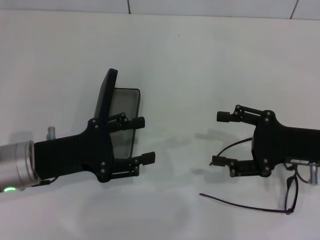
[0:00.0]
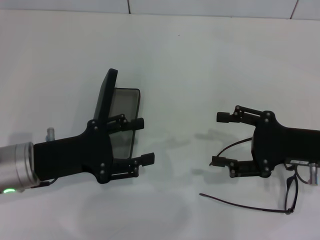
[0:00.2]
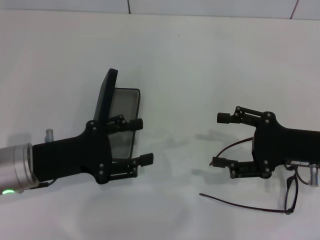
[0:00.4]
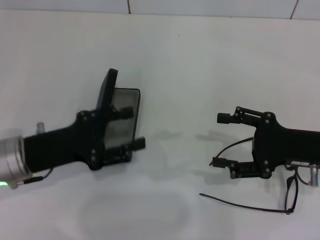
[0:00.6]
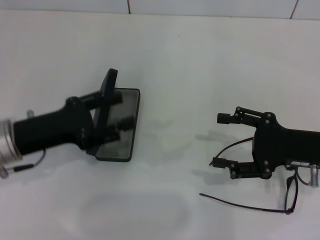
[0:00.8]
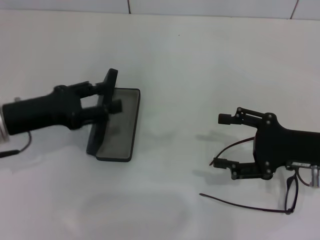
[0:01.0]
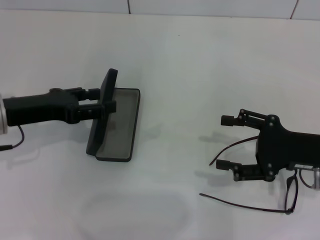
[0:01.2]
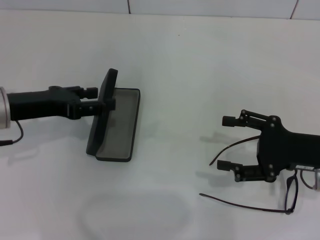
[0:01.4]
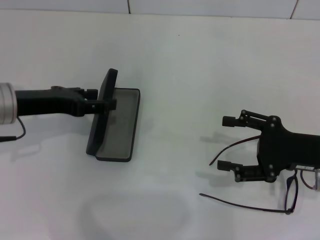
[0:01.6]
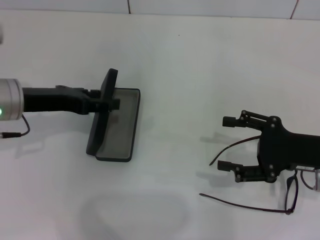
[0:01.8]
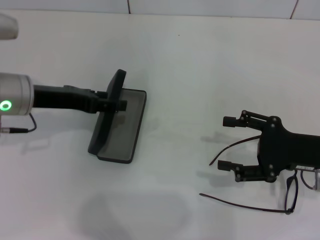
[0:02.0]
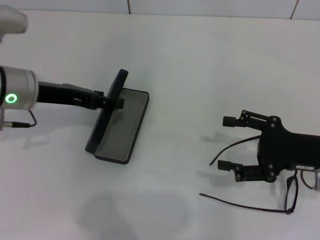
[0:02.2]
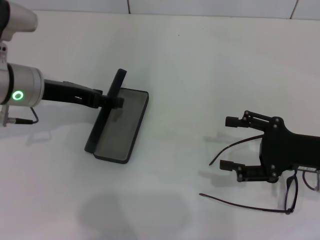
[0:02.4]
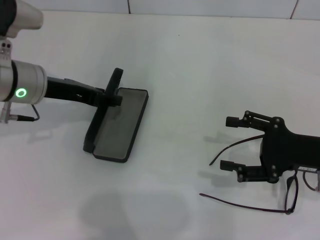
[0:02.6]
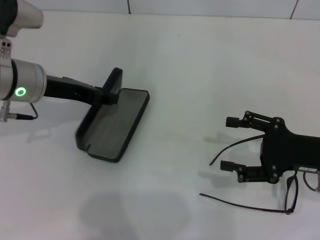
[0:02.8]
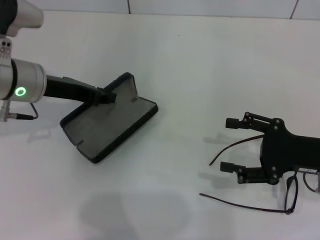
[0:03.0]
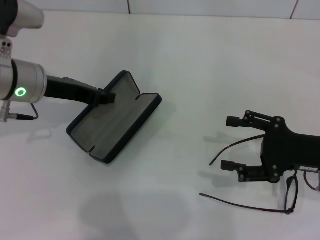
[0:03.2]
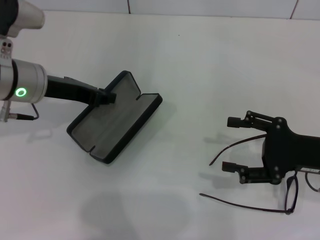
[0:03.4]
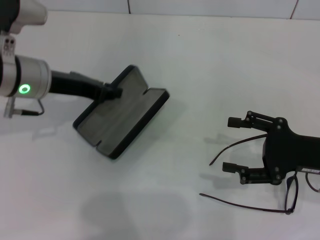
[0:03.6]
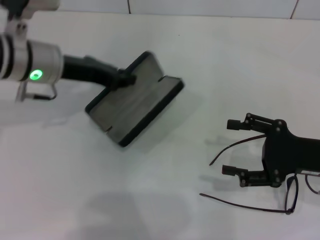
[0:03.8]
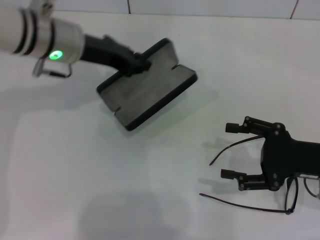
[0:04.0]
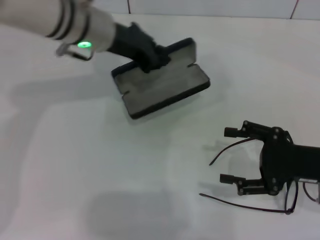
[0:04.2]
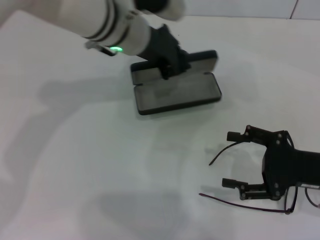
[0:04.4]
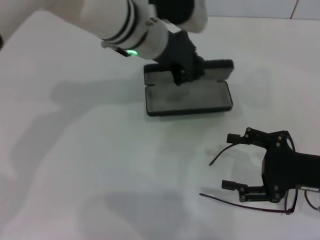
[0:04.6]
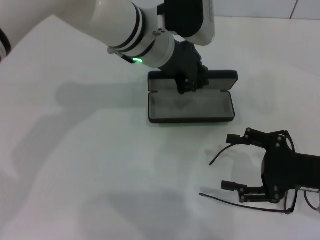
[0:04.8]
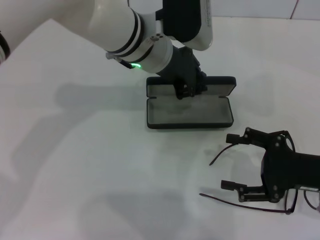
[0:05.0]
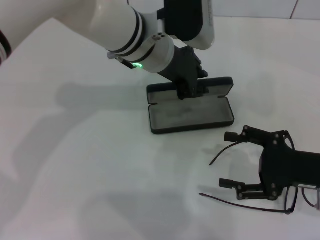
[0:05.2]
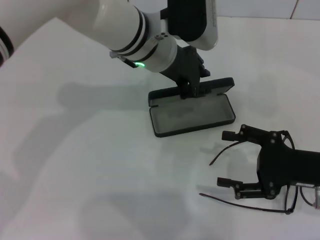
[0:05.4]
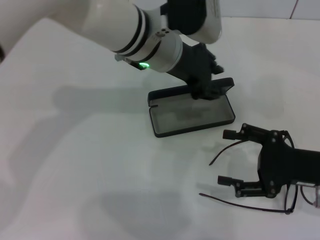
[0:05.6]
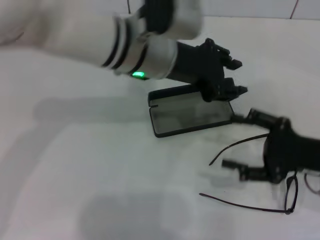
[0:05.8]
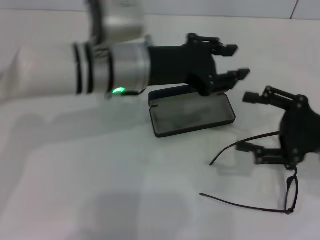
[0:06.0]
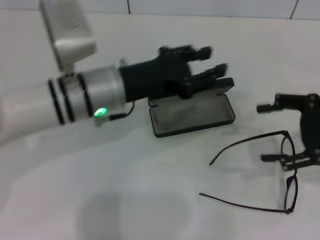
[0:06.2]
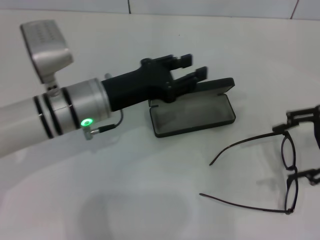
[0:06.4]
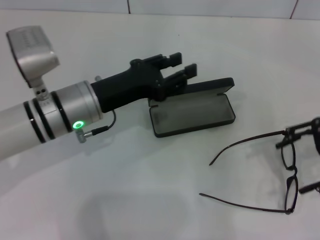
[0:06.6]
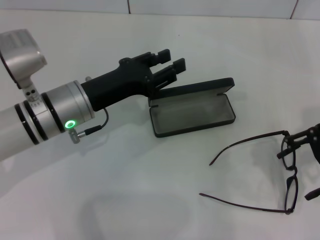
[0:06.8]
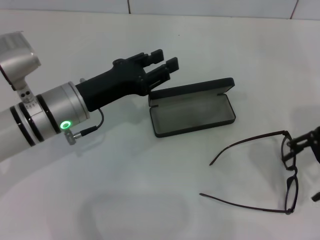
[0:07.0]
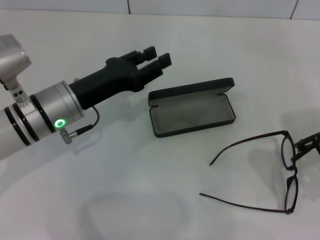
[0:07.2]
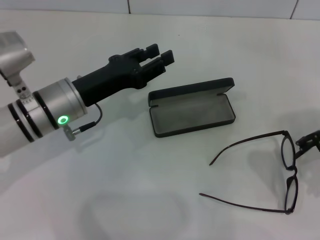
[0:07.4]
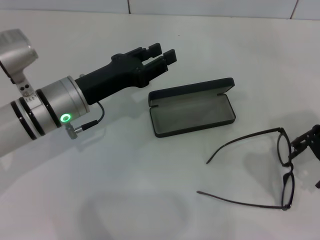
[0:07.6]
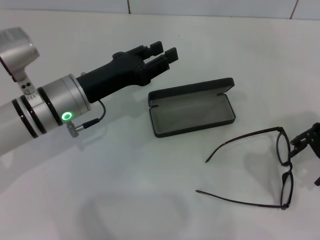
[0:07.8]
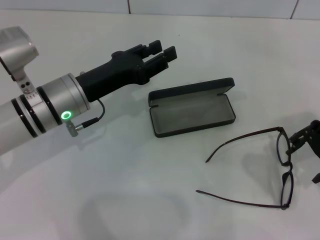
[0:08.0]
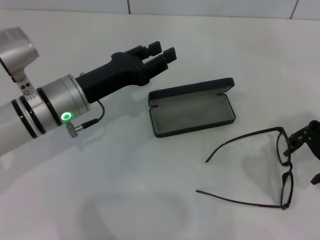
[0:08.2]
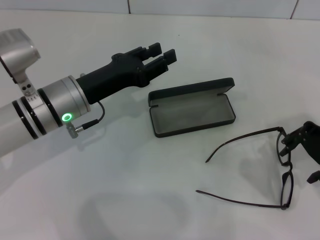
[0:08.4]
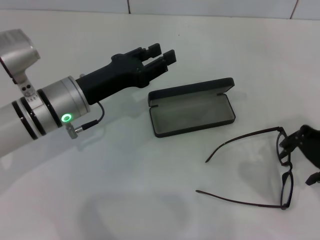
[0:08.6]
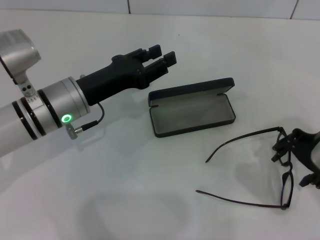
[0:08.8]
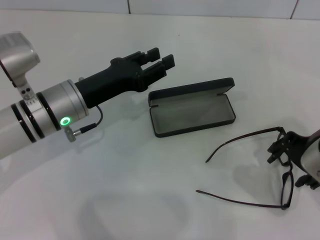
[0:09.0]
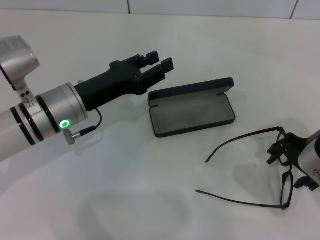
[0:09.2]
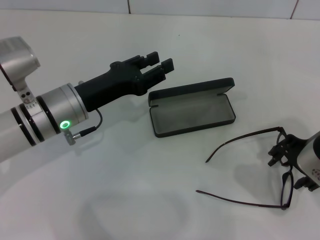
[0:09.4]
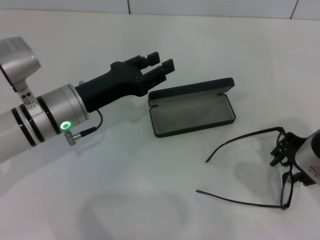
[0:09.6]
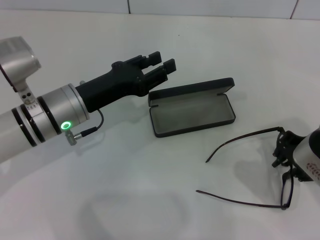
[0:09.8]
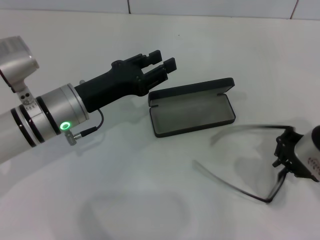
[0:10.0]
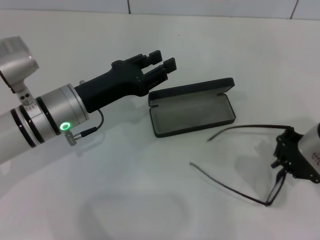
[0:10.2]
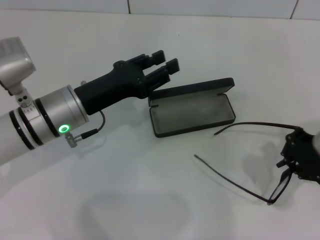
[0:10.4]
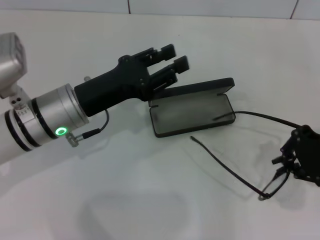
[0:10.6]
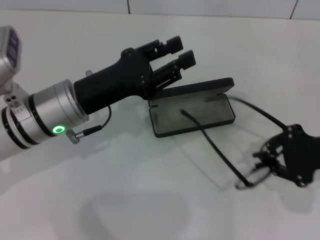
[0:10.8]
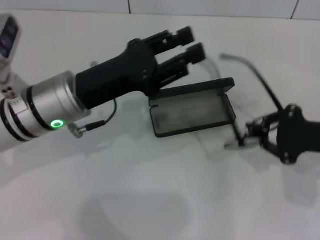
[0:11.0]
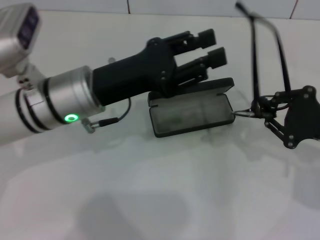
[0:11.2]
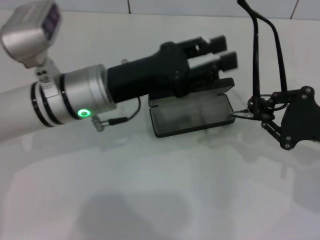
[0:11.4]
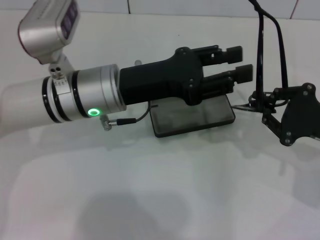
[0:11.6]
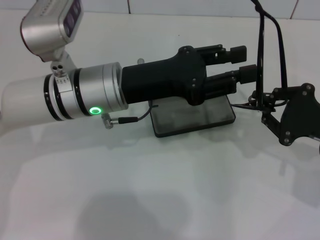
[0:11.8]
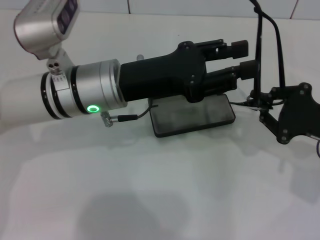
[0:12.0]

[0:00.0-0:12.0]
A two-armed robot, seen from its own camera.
Step, 0:00.0 to 0:03.0: Grab the glasses case with your left hand.
Step, 0:03.2 to 0:05.4: Place the glasses case in the center of the table with your left hand.
Step, 0:05.6 to 0:10.2: Grab the eyeglass frame with your right hand.
0:00.0 to 0:01.6: The left gripper moves forward and upward, some 10 cm.
0:01.6 to 0:03.0: The left gripper shifts by some 5 cm, and closes up.
0:03.0 to 0:04.4: The left gripper moves to the right, some 15 cm.
0:04.4 to 0:06.0: The left gripper goes some 5 cm backward, and opens up.
0:06.0 to 0:07.6: The left gripper shifts some 10 cm to the left and downward. Meanwhile the right gripper moves upward, roughly 10 cm.
0:07.6 to 0:09.0: The grippers stay close to where they were, moving slightly.
0:09.0 to 0:10.4: The right gripper closes.
0:10.4 to 0:12.0: The left gripper goes about 10 cm to the right and upward. The right gripper is displaced downward and to the right by some 10 cm.

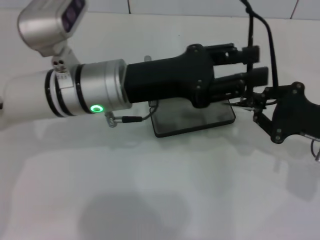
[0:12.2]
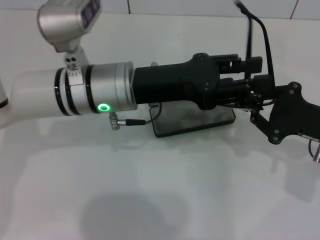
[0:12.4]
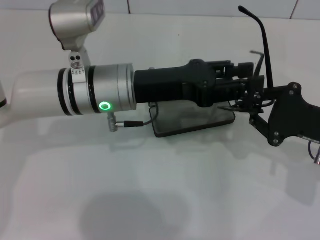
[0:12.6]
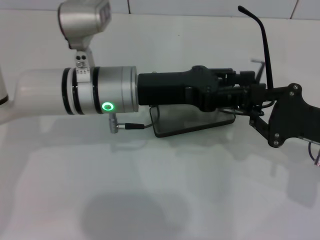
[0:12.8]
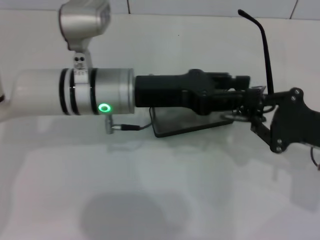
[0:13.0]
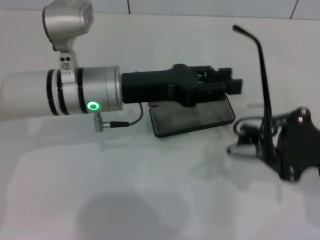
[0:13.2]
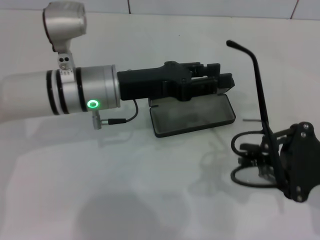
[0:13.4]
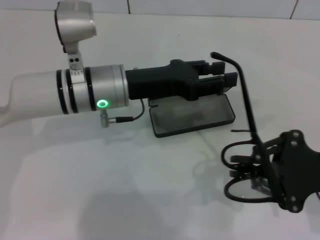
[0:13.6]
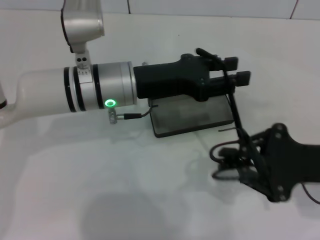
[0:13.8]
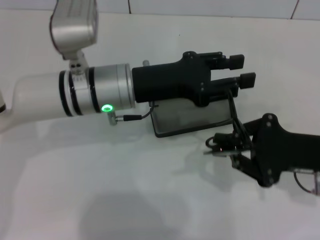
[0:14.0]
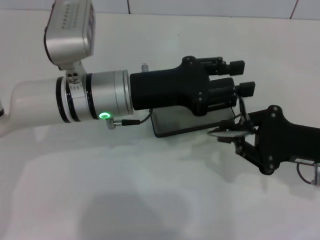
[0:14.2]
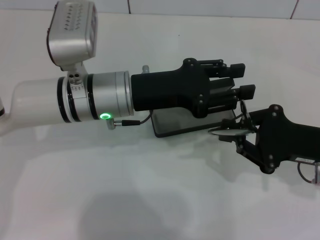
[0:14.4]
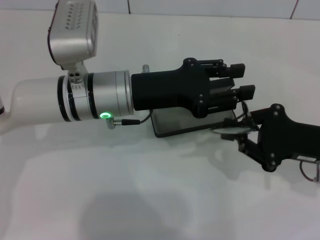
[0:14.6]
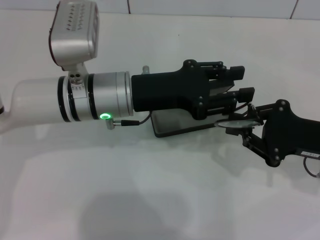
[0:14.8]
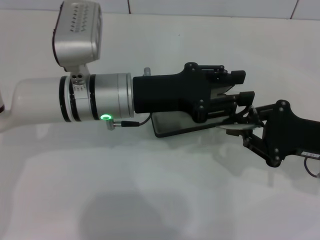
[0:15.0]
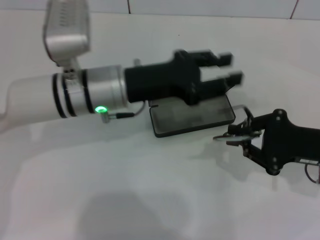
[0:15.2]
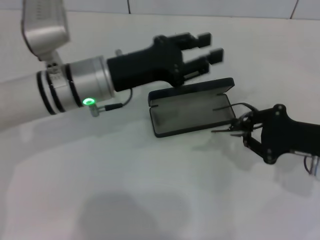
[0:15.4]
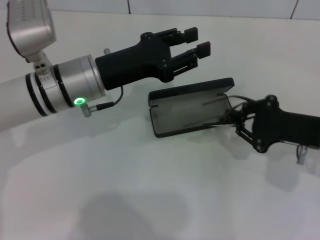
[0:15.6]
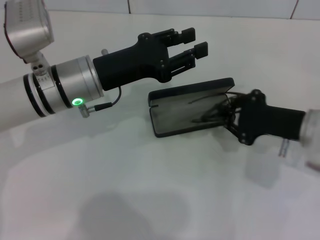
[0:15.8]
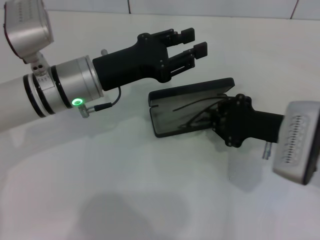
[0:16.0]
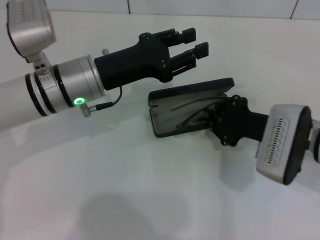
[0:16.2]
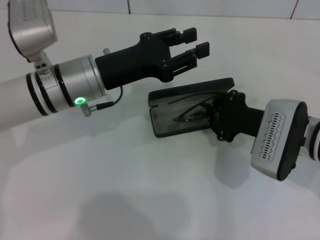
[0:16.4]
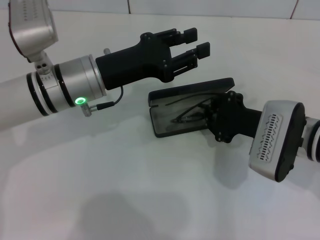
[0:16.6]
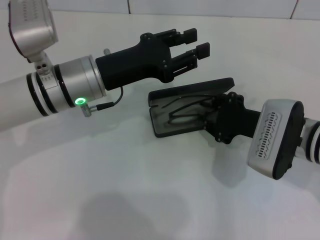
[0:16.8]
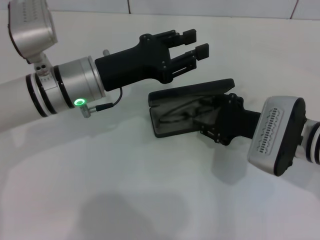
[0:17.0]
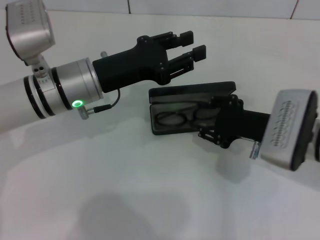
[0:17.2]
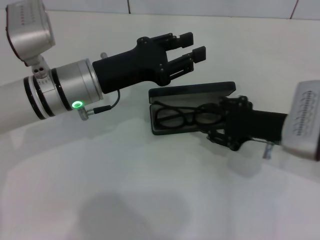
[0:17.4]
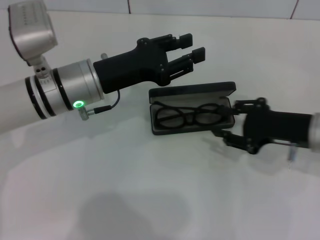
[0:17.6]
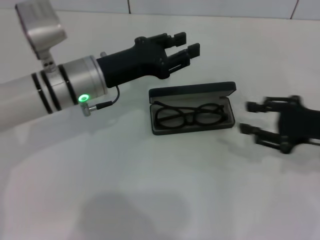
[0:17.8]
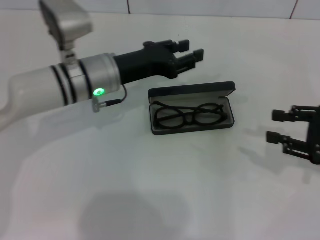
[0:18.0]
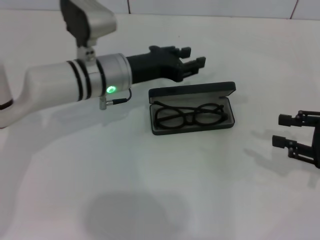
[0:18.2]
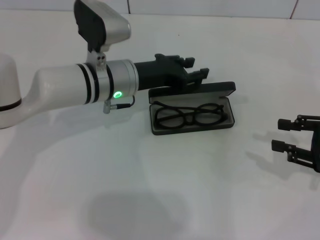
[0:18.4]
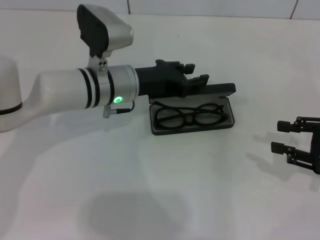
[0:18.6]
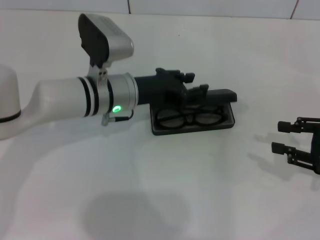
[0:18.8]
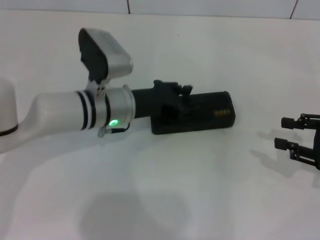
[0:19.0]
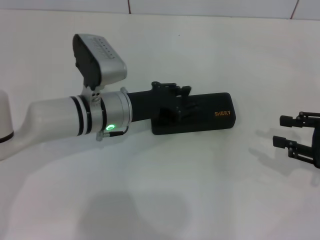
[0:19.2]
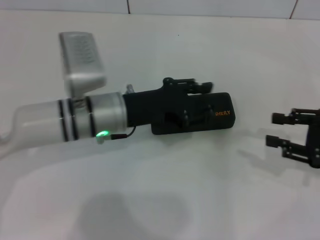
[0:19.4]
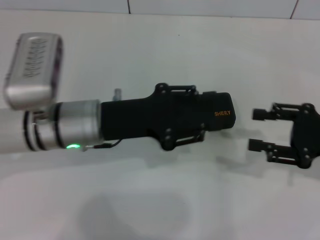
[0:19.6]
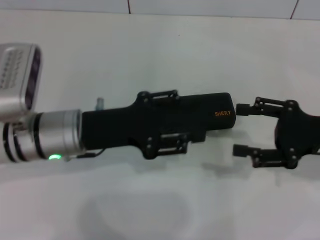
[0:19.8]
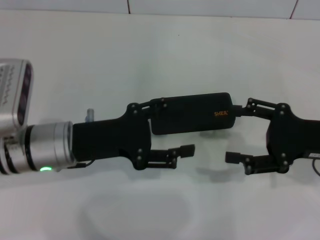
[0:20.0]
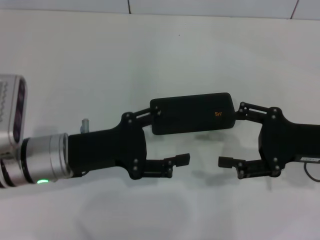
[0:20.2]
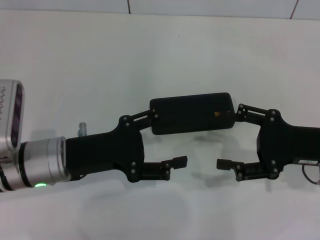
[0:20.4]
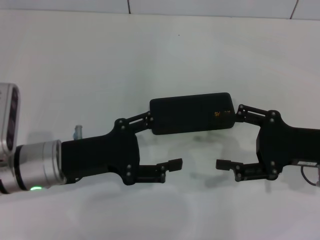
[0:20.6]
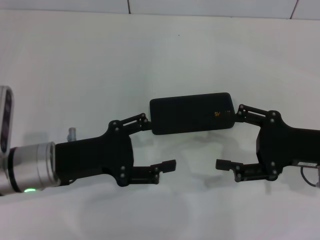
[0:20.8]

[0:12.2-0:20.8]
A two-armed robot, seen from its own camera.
Step, 0:12.2 to 0:14.8: Fold the frame with your left hand.
Step, 0:15.2 to 0:17.4: Put the glasses into the case with your right hand.
Step, 0:17.6 to 0:19.0: Close the glasses case with your left hand.
0:15.0 to 0:16.6: The right gripper heads to the left, covering approximately 10 cm.
0:16.6 to 0:18.0: The right gripper travels to the right by roughly 15 cm, and opens.
0:18.0 to 0:19.4: The left gripper changes place by some 5 cm.
0:19.4 to 0:20.8: The left gripper heads to the left and backward, covering about 10 cm, and opens up, while the right gripper travels to the left by some 5 cm, and opens up.
